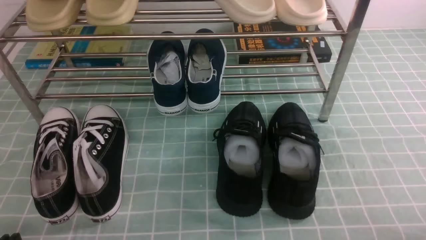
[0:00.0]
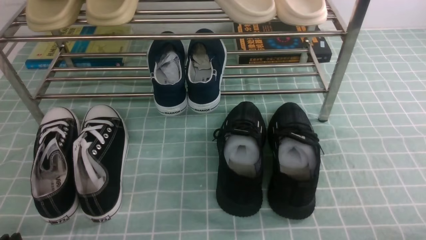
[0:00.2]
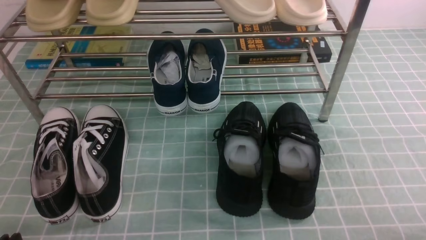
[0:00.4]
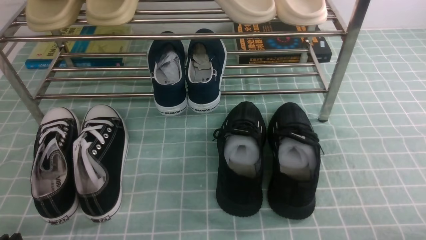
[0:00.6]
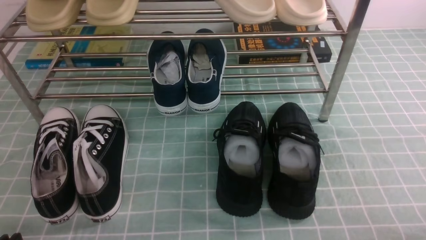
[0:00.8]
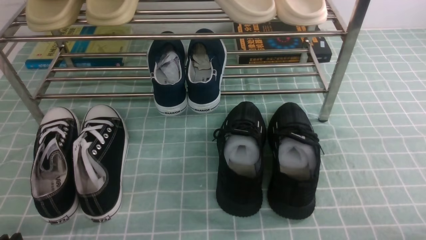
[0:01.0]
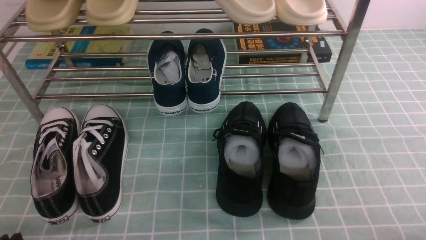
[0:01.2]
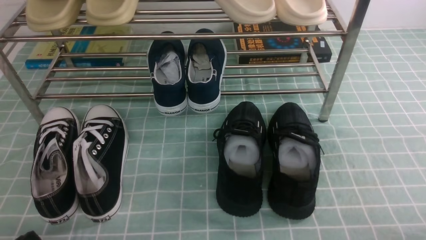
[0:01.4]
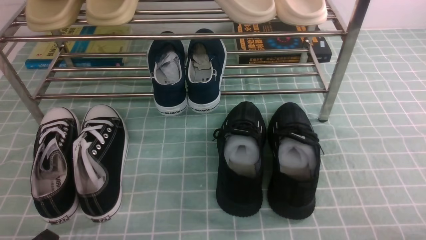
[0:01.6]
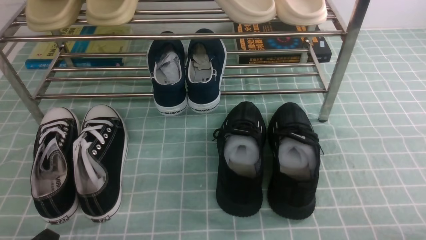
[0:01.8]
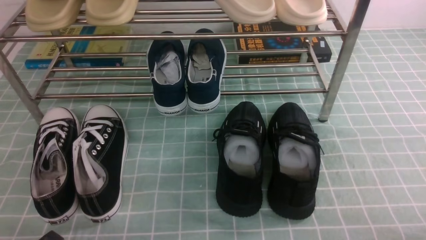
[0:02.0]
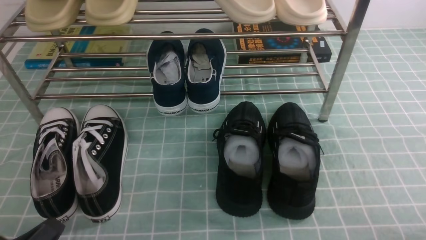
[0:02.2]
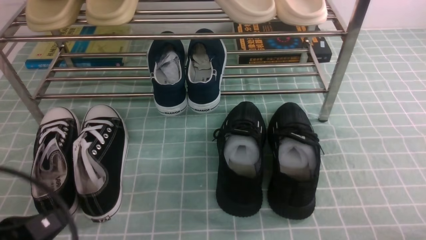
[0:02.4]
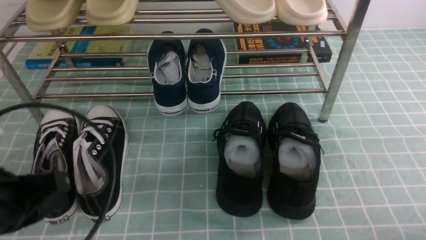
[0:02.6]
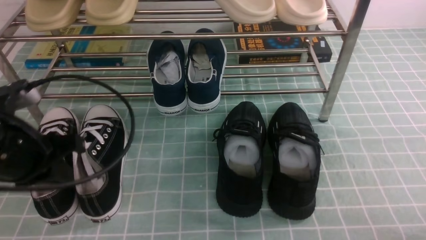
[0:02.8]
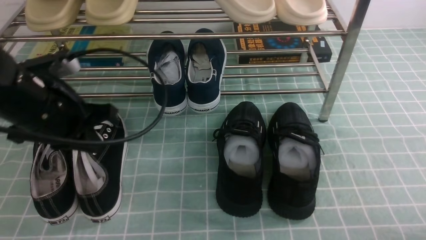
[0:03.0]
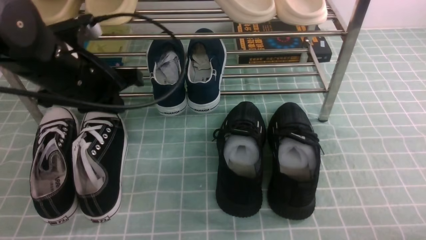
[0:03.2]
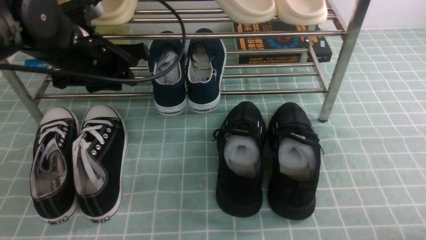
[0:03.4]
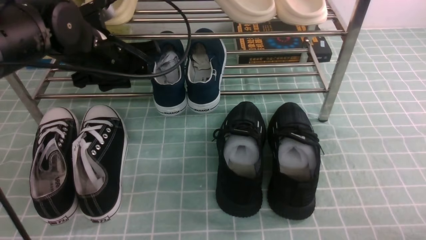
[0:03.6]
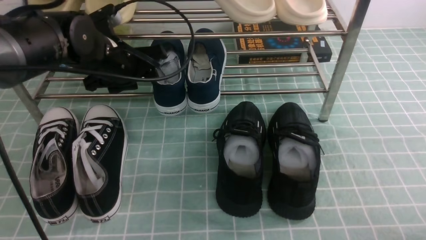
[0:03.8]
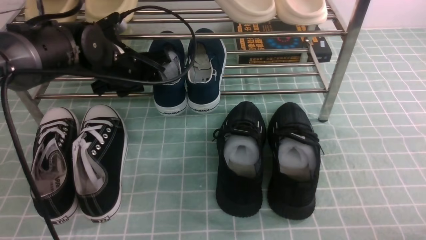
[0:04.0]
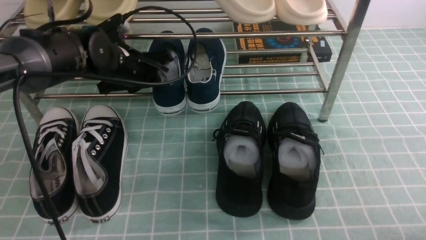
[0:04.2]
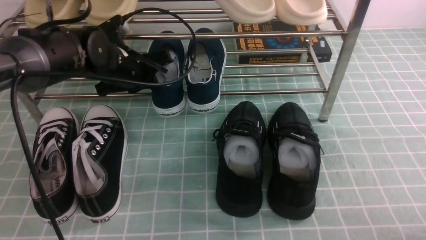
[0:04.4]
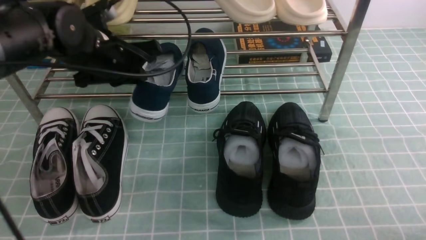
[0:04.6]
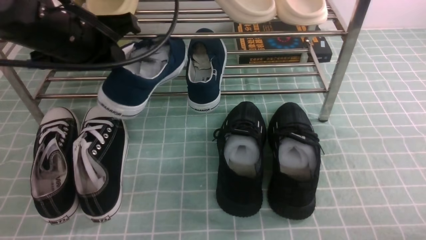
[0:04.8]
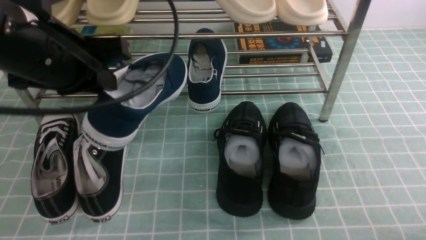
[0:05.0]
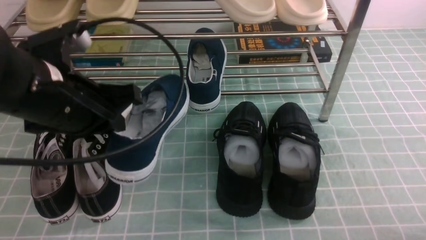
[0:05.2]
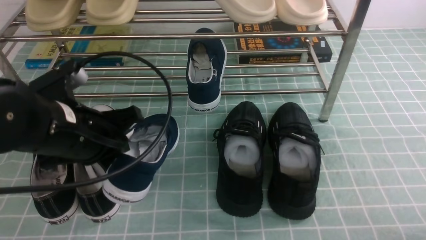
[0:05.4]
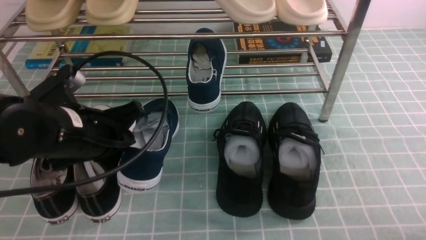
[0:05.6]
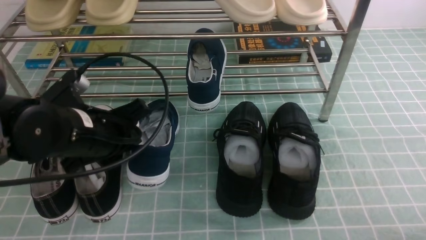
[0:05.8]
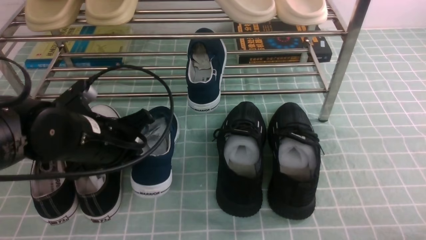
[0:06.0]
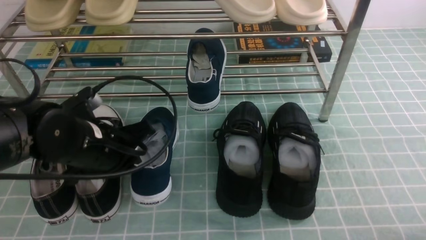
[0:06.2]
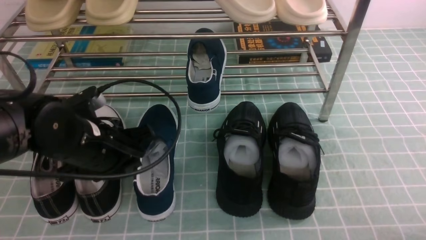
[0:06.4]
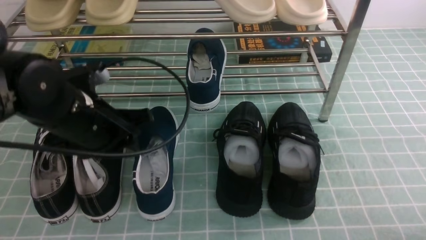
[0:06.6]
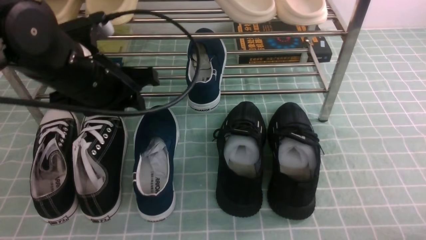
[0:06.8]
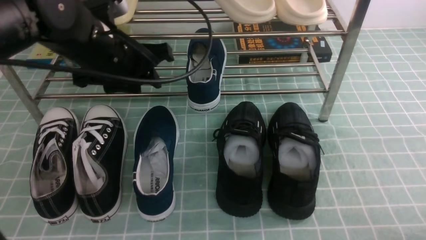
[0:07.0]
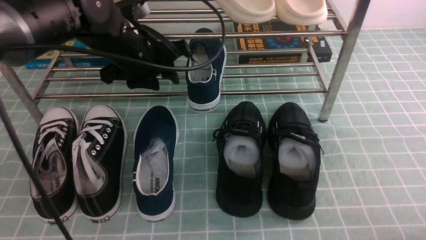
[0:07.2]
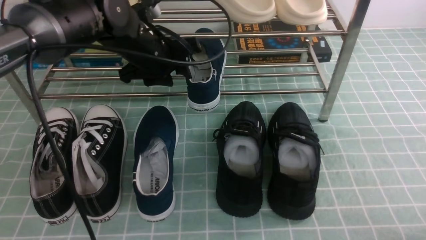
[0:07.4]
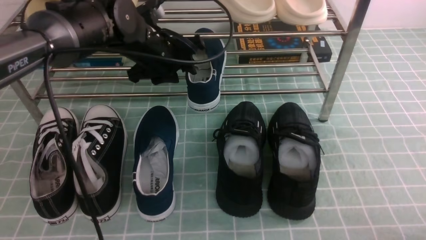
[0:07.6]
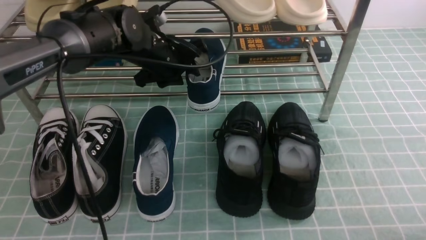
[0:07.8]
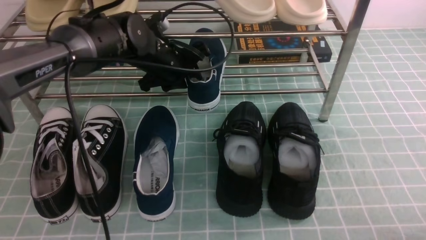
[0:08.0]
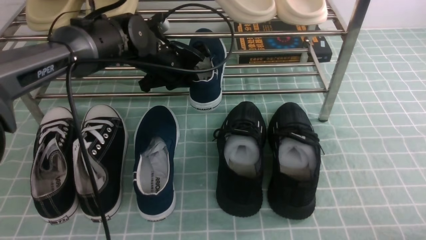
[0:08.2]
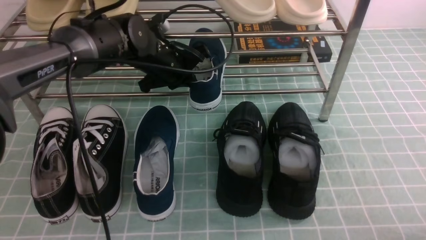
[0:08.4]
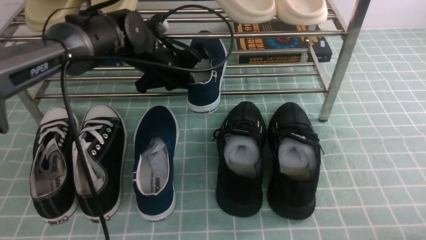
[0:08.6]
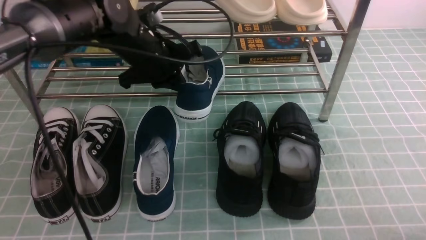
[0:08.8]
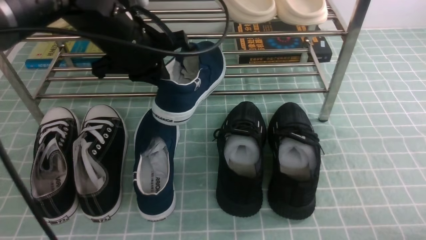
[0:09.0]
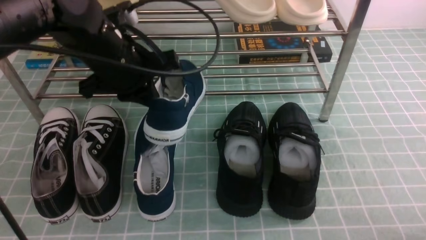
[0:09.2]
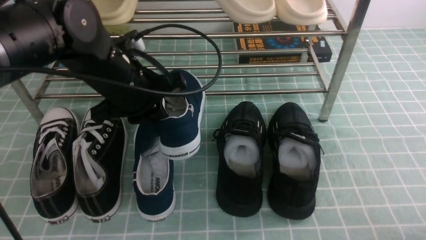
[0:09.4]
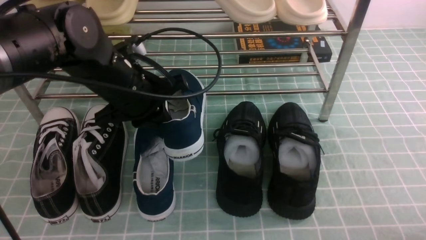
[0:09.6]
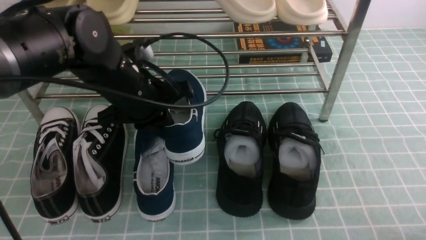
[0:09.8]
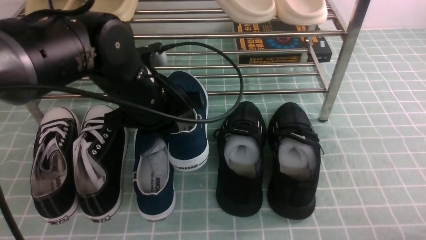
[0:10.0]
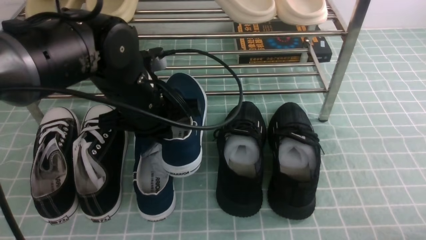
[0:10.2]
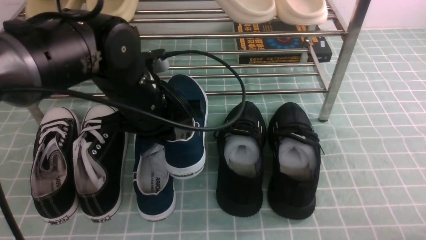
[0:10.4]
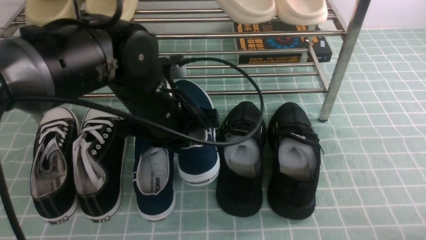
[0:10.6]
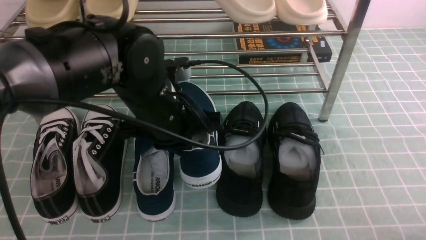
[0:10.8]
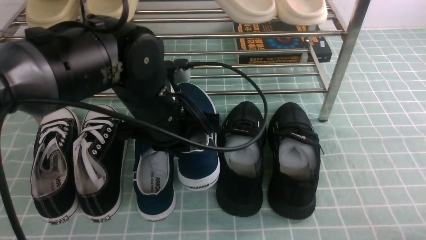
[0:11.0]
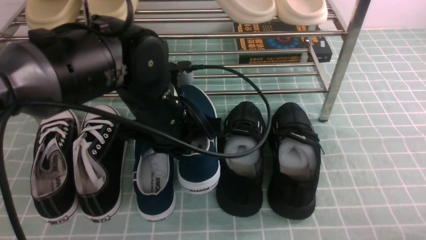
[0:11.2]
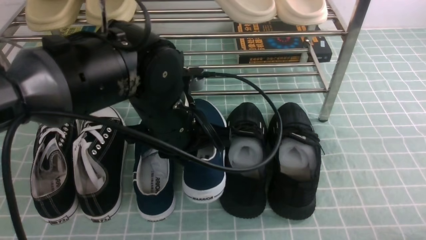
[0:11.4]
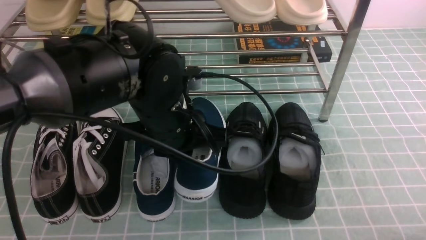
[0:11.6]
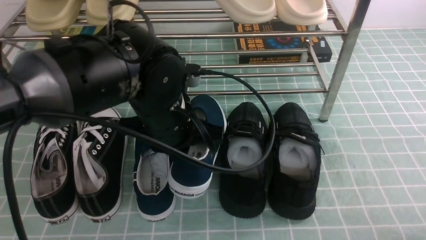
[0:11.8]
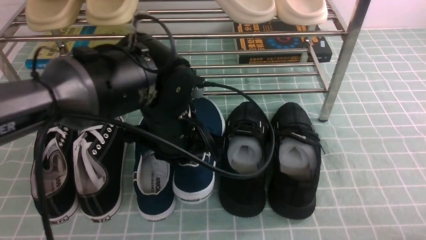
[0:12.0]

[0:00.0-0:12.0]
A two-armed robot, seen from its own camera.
Step, 0:00.0 to 0:04.2: use the left arm to clamp a shoe in the middle of the shoe rack.
Step, 0:04.4 to 0:06.6: Use your left arm to remove the clamped shoe from the shoe rack and put it down.
Step, 0:06.8 to 0:08.6: use the left arm to clamp a shoe in the middle of the shoe rack.
0:01.6 to 0:03.0: The left gripper heads forward and upward, covering about 25 cm, and closes up.
0:03.0 to 0:04.4: The left gripper shifts some 15 cm forward and to the right, and opens and closes again.
0:04.4 to 0:06.0: The left gripper is displaced backward by approximately 15 cm.
0:06.0 to 0:07.6: The left gripper goes about 15 cm forward and to the right, and opens its fingers.
0:07.6 to 0:09.0: The left gripper moves backward, some 5 cm, and closes its fingers.
0:09.0 to 0:10.4: The left gripper heads backward, covering approximately 5 cm.

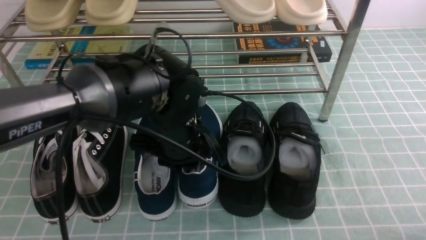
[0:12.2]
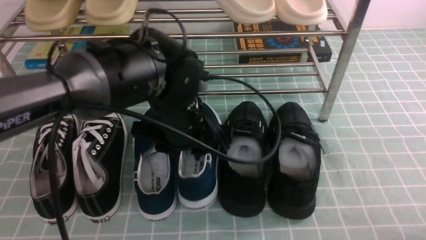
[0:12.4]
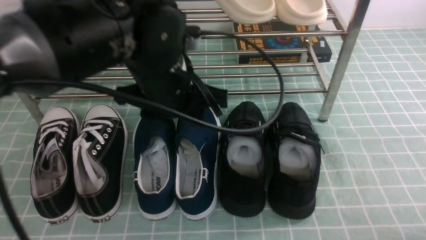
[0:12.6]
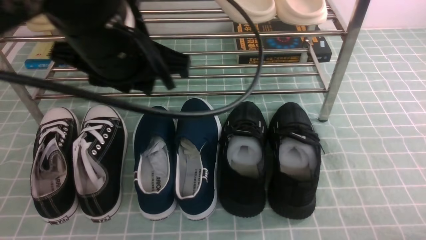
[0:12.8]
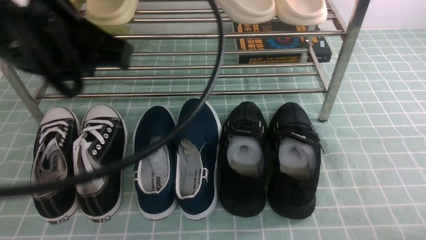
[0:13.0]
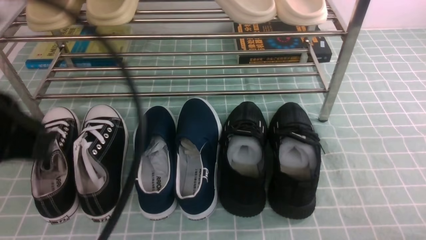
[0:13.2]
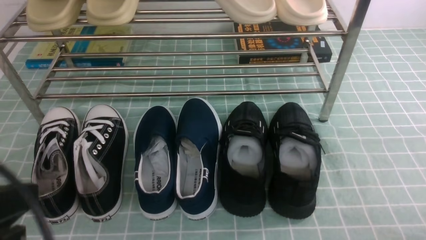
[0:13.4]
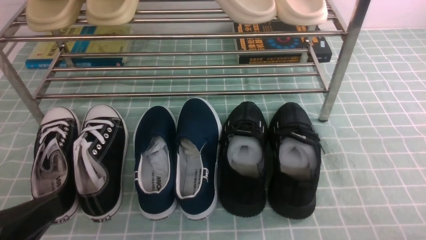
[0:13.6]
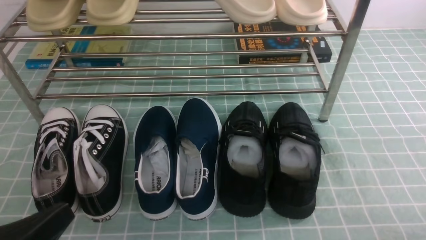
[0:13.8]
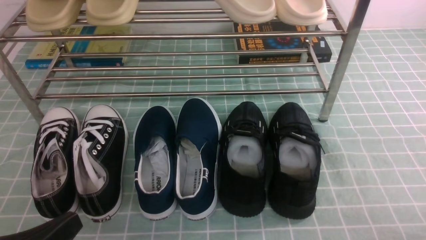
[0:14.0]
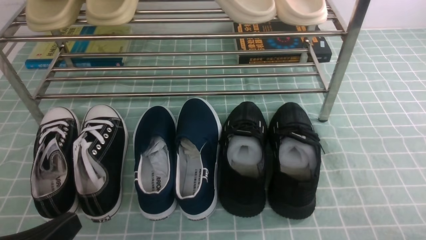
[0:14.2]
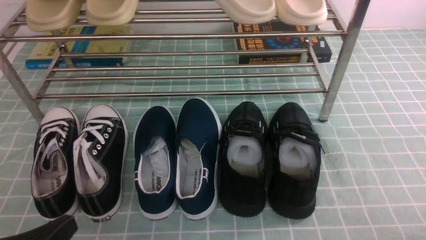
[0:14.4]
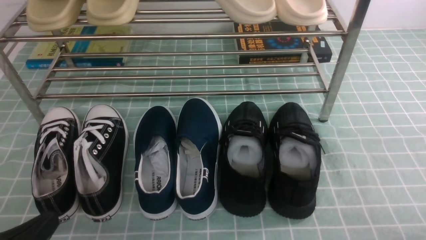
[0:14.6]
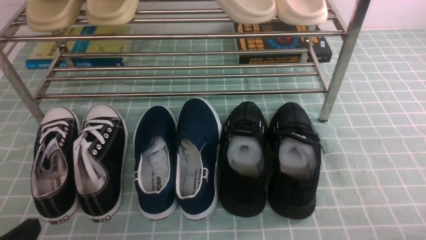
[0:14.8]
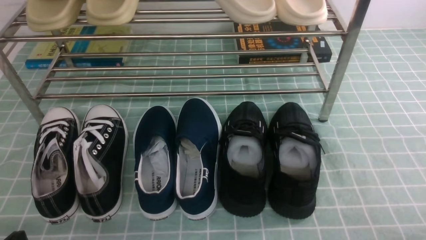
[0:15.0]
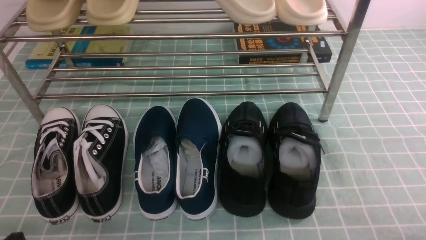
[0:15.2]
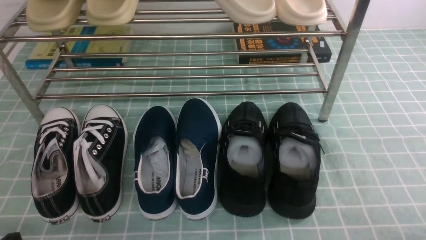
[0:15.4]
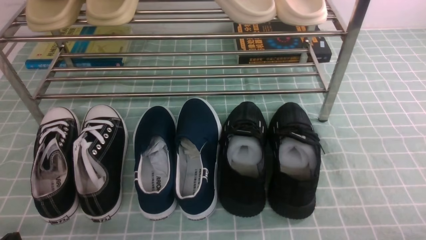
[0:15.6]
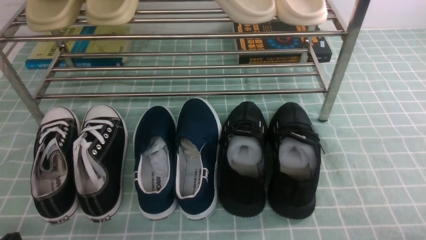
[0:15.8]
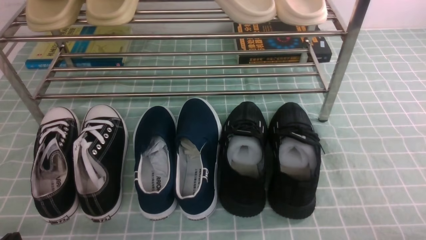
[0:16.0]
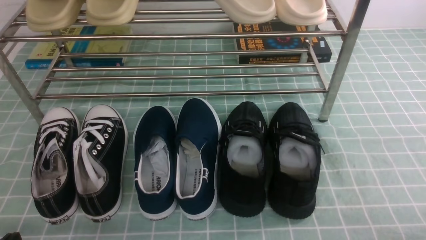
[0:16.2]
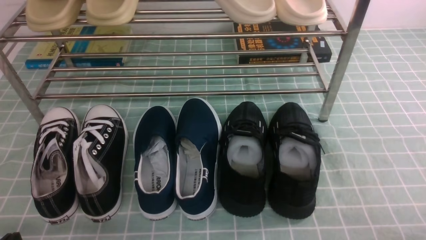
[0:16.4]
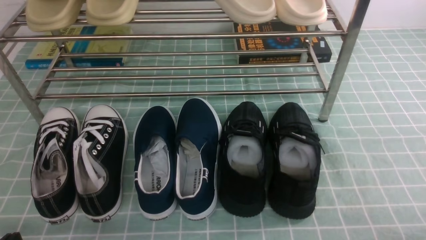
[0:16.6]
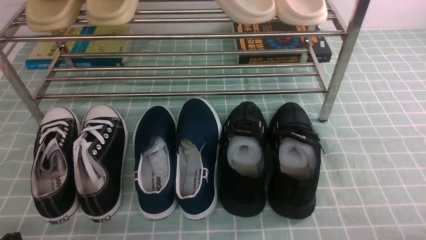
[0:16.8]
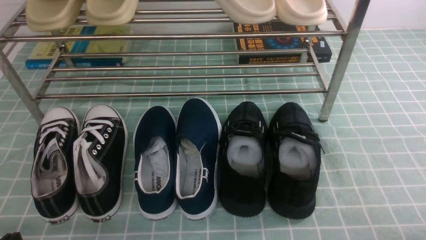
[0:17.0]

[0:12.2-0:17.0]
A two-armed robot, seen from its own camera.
0:12.2 to 0:13.8: The left gripper heads backward and to the left, covering some 30 cm, and closes its fingers.
0:13.8 to 0:15.4: The left gripper heads downward, covering about 10 cm.
0:15.4 to 0:17.0: The two grippers keep their place.
